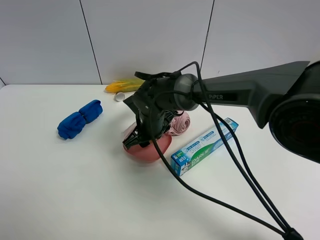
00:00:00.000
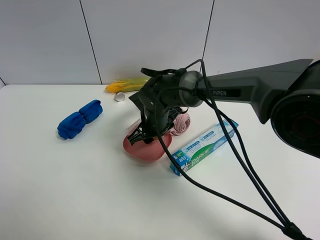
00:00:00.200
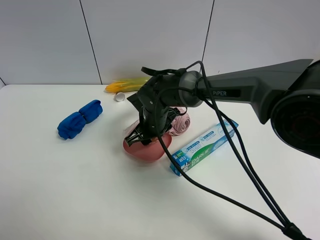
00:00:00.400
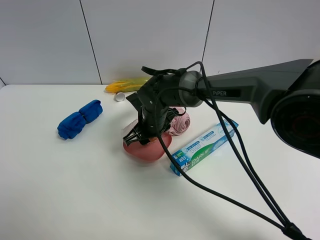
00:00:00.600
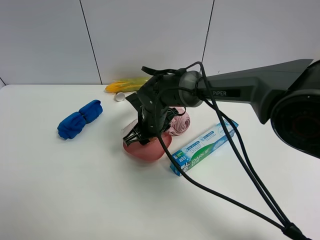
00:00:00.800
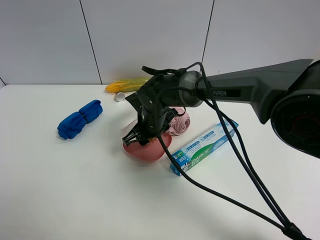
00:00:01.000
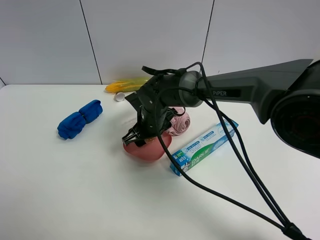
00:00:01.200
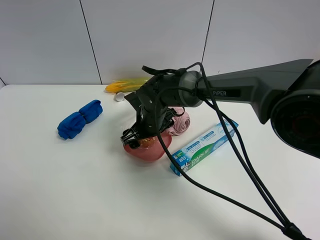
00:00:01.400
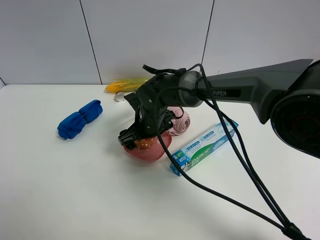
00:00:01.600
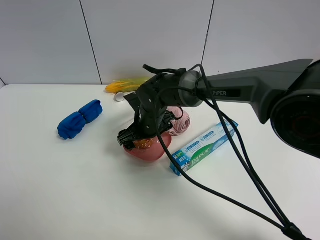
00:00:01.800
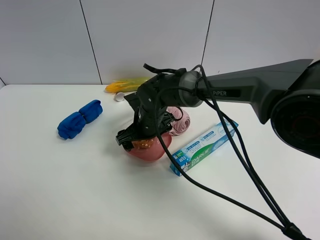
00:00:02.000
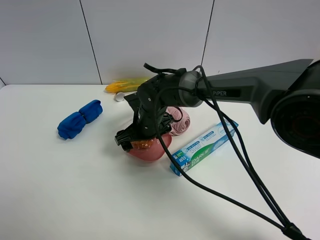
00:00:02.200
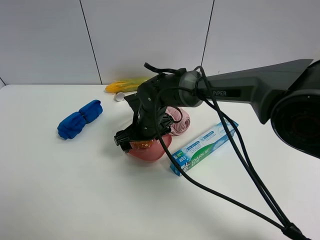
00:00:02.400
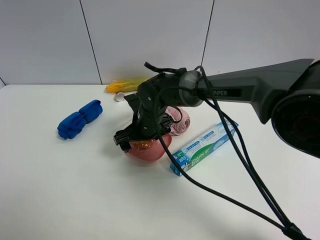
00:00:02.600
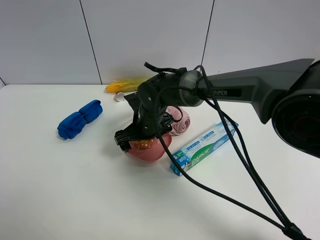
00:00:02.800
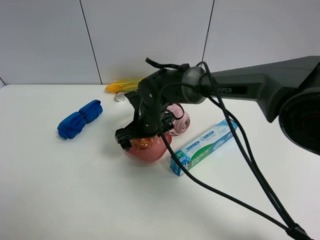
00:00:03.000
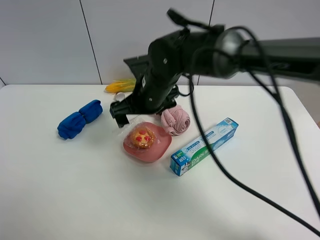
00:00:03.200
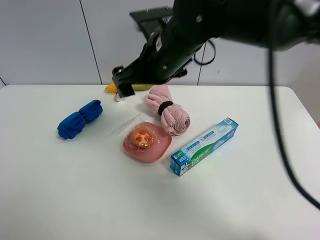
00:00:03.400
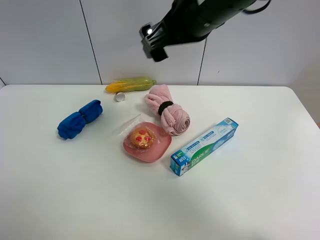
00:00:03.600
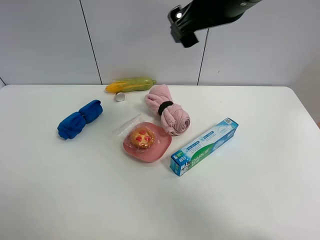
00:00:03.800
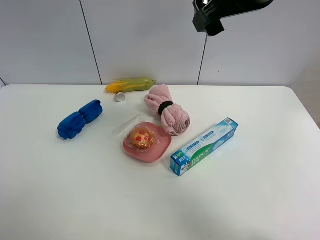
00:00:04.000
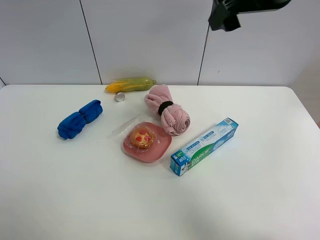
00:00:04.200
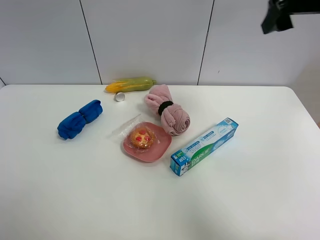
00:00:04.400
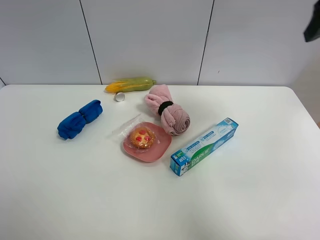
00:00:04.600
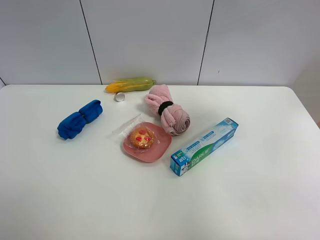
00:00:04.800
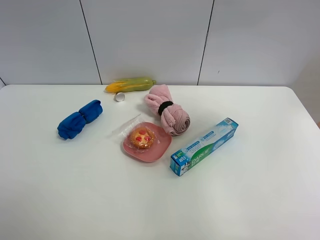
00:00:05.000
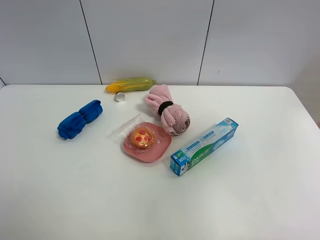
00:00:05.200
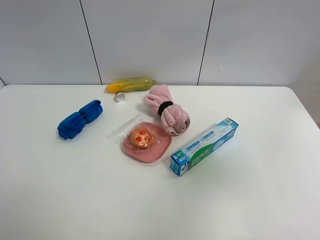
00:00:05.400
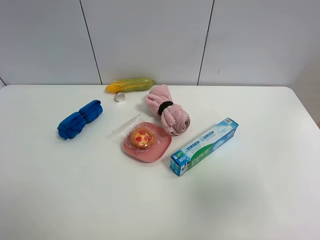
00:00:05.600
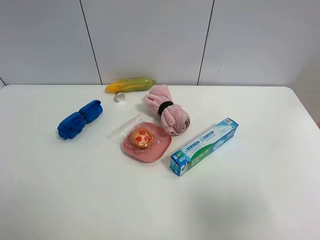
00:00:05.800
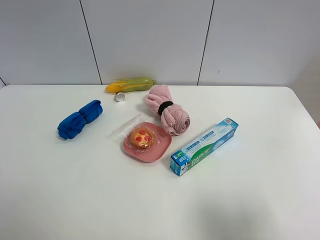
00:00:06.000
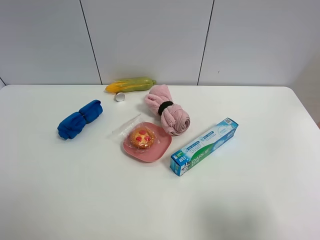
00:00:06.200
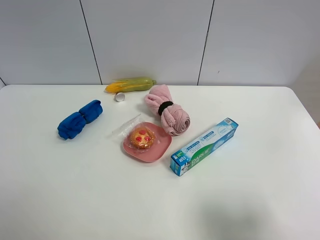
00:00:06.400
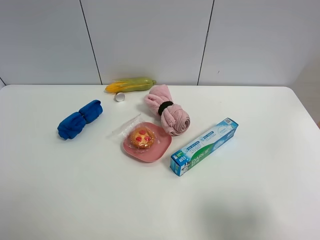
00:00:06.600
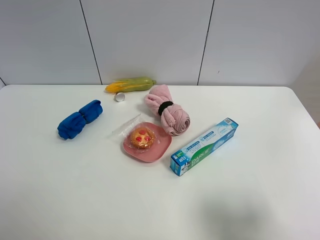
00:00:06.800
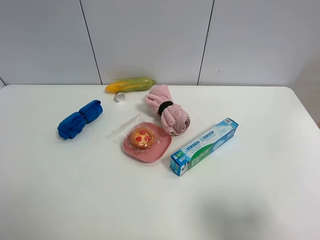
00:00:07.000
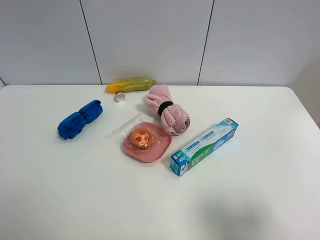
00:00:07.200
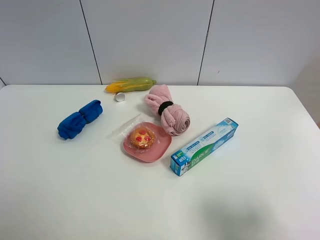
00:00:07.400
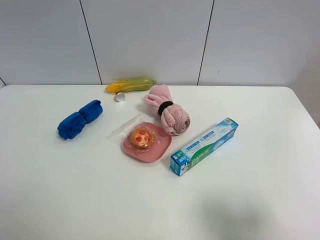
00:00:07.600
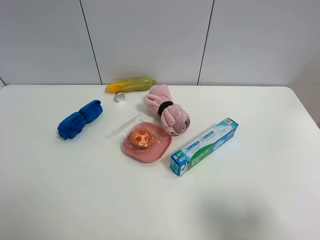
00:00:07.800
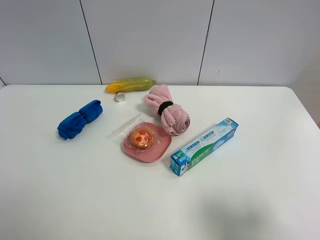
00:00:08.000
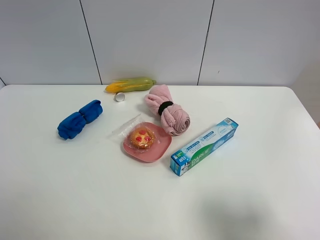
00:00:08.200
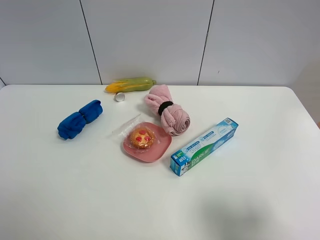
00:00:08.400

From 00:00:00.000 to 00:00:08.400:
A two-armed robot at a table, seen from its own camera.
Task of the whole recording: the gripper move the object.
From 00:00:00.000 to 00:00:01.400: The right gripper opens.
From 00:00:01.400 to 00:00:02.800: The grippers move only a little.
From 00:00:02.800 to 00:00:04.200: The right gripper moves upward and to the right, some 35 cm.
From 00:00:04.200 to 00:00:05.600: The right gripper heads backward and to the right, covering some 30 cm.
From 00:00:05.600 to 00:00:07.000: The right gripper goes some 10 cm downward.
From 00:00:07.000 to 00:00:08.400: Both grippers stay about where they are.

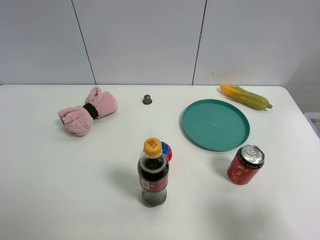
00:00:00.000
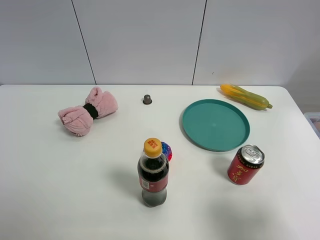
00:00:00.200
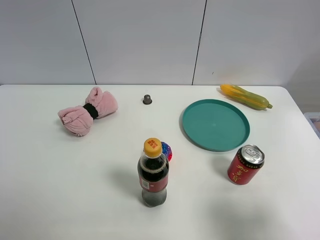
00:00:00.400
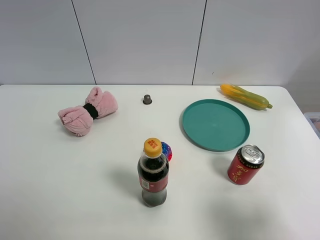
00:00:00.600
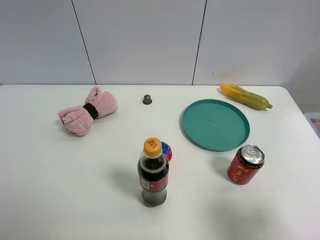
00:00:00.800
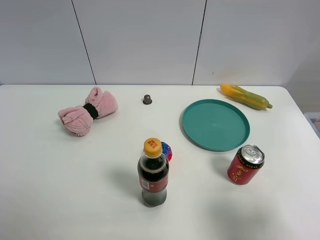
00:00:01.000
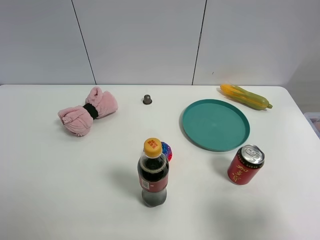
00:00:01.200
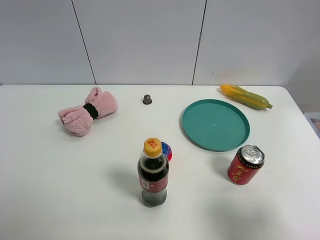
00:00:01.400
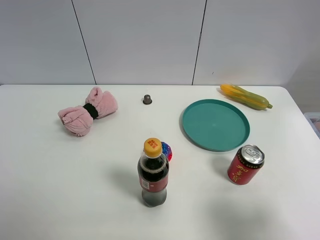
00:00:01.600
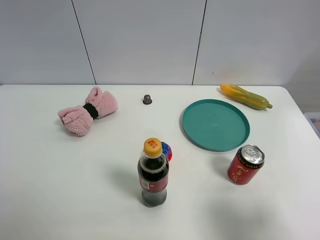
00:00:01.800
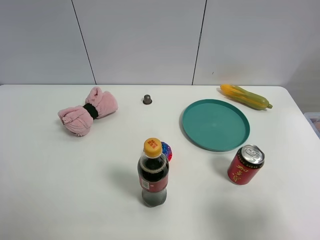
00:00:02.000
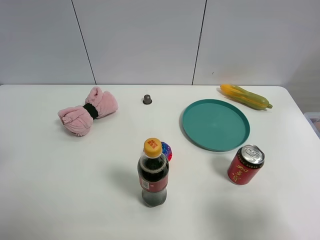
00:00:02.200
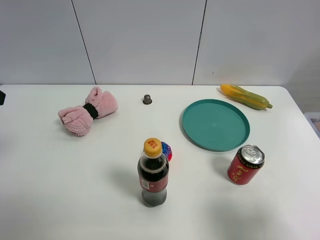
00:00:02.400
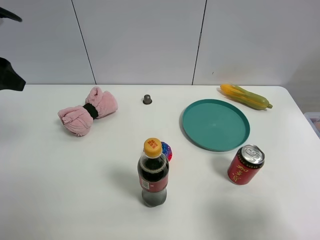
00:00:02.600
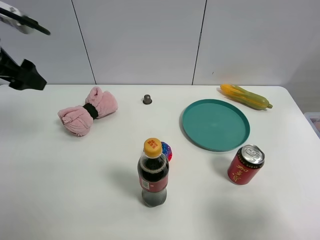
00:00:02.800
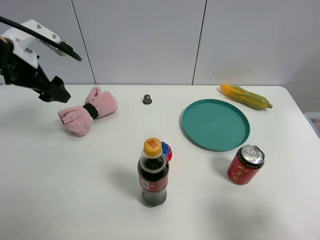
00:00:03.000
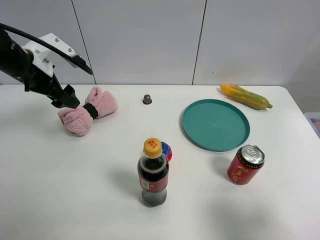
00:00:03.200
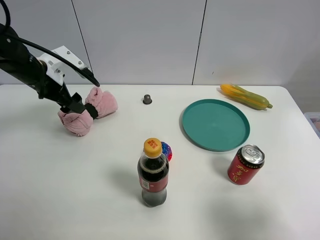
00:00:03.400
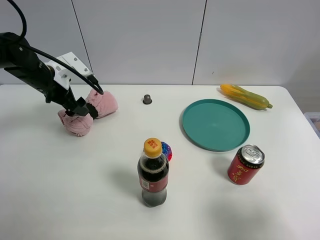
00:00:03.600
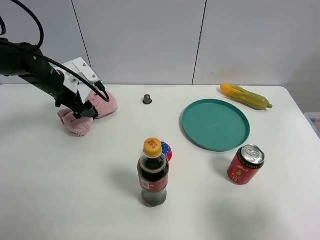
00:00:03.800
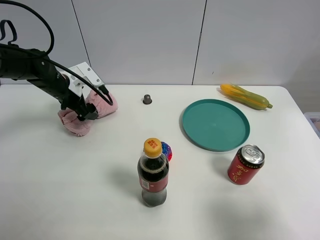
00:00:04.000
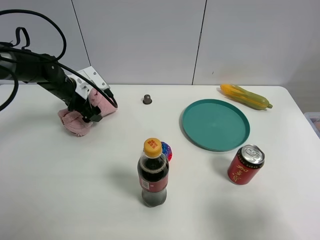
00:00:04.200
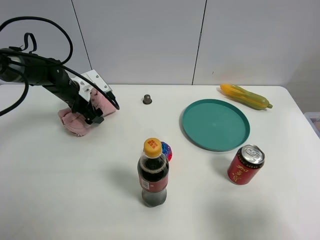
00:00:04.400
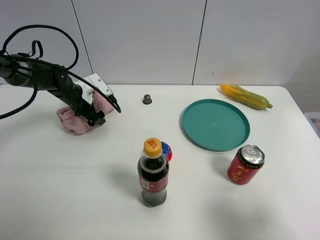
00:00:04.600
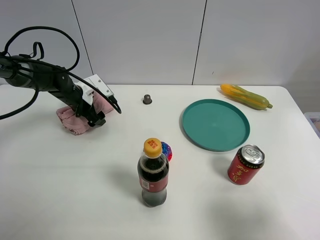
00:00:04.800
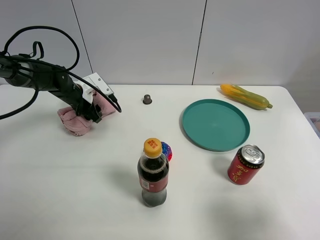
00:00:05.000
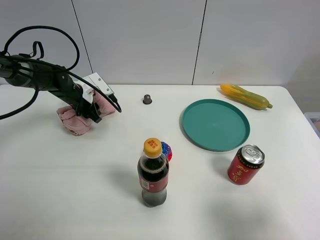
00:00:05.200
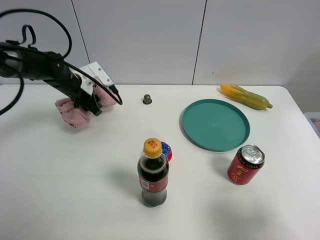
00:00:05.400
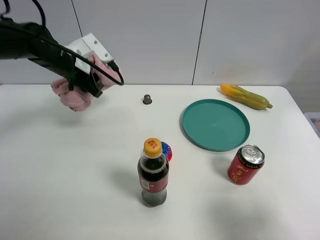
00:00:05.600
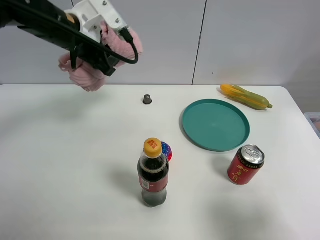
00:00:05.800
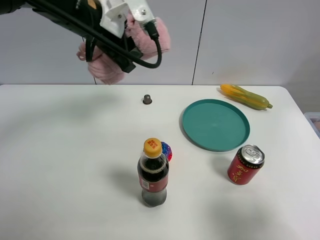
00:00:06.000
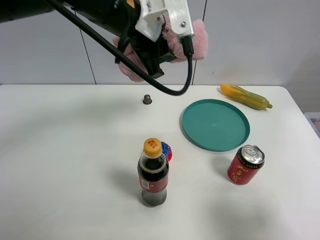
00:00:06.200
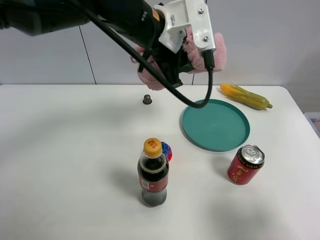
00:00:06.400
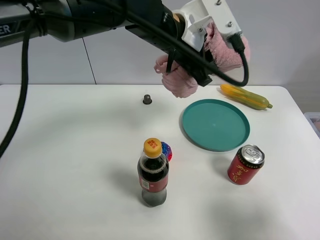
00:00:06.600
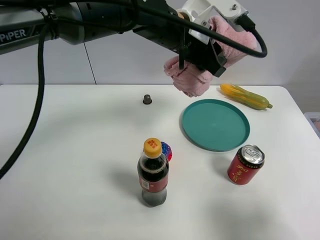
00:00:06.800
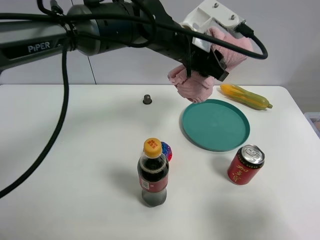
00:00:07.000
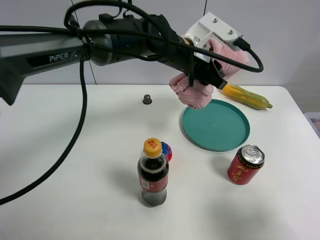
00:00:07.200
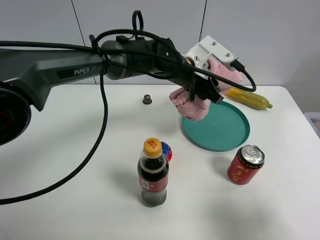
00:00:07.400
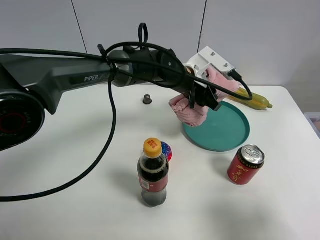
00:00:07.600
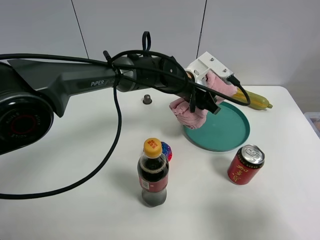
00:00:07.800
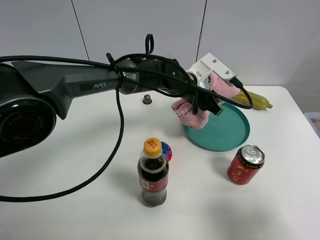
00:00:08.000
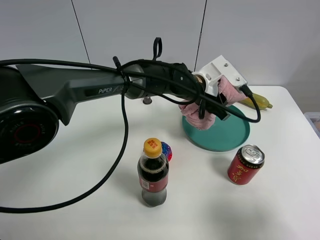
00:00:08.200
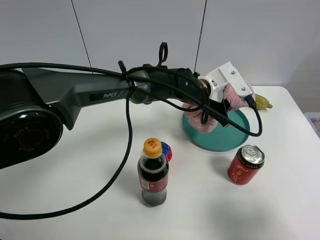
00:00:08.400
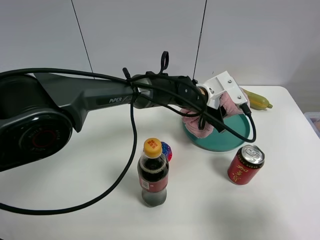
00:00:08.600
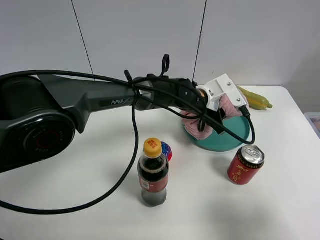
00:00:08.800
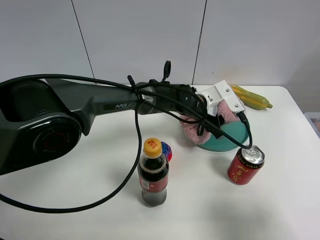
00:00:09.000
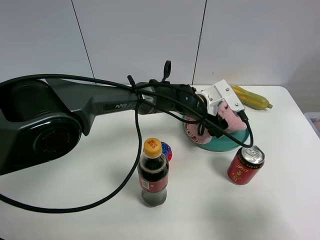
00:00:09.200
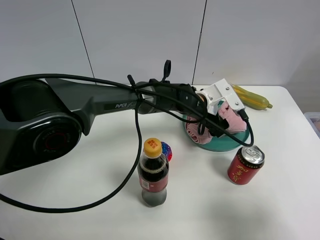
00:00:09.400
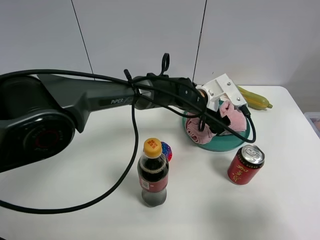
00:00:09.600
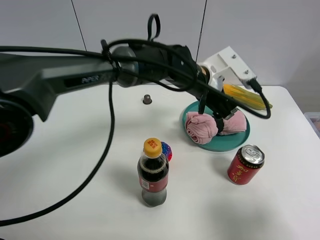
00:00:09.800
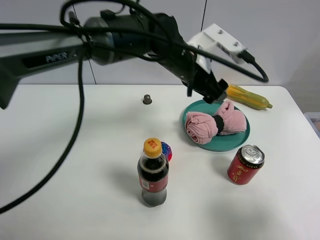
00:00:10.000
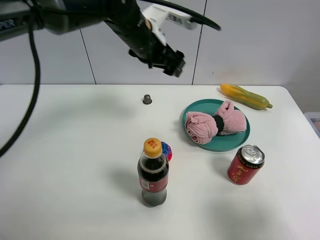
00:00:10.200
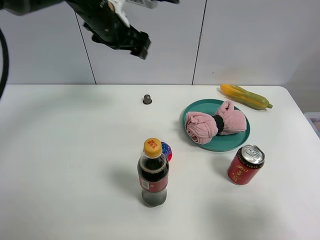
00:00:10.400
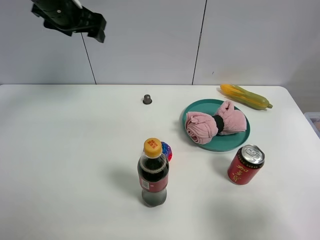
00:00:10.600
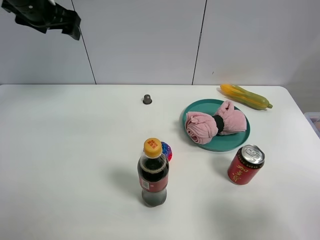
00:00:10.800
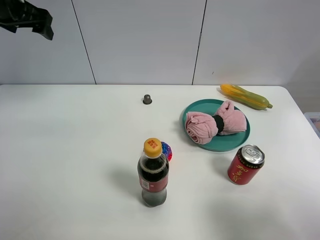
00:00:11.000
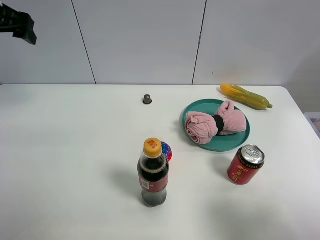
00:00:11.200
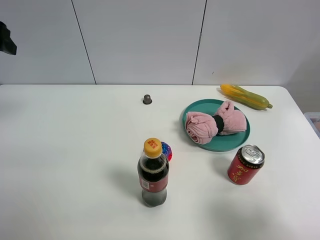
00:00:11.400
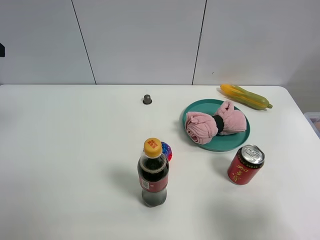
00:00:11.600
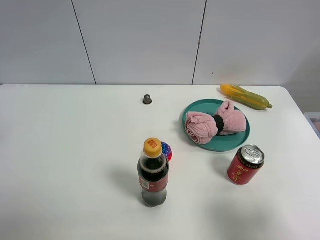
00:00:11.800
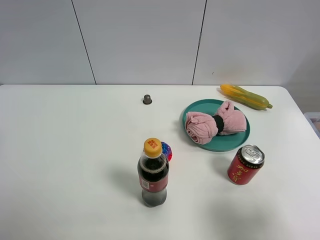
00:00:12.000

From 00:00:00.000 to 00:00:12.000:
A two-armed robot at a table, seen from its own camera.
Task of the whole recording: the gripper move the object.
Step, from 00:00:00.000 to 00:00:05.000: Grasp the pink towel with the left gripper.
Step, from 00:00:05.200 to 00:00:09.600: Place the pink towel on the table with the left gripper.
From 00:00:01.600 to 00:00:03.000: The left gripper goes about 30 cm forward.
From 00:00:03.000 to 00:00:04.400: The left gripper heads downward and forward, covering roughly 20 cm.
From 00:00:04.400 to 00:00:06.000: The left gripper heads upward and to the right, covering about 25 cm, and closes.
From 00:00:06.000 to 00:00:07.600: The left gripper moves downward and to the right, roughly 20 cm.
From 00:00:07.600 to 00:00:09.000: The left gripper shifts approximately 5 cm downward.
From 00:00:09.000 to 00:00:10.400: The left gripper is displaced to the left and upward by about 30 cm, and opens its fingers.
From 00:00:10.400 to 00:00:12.000: The left gripper heads backward and to the left, covering roughly 35 cm.

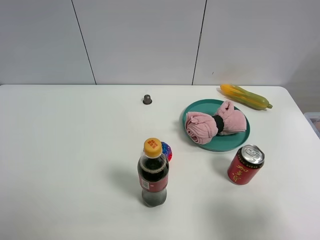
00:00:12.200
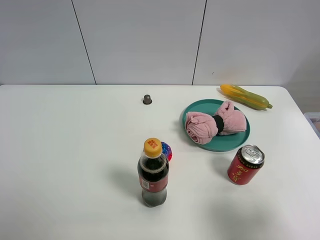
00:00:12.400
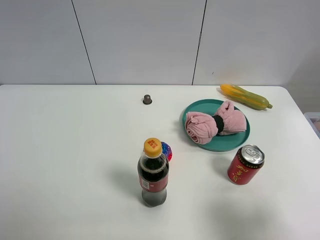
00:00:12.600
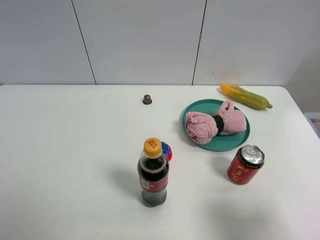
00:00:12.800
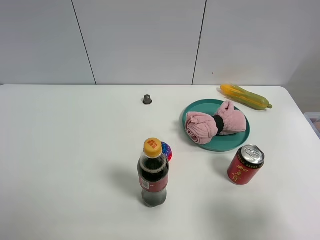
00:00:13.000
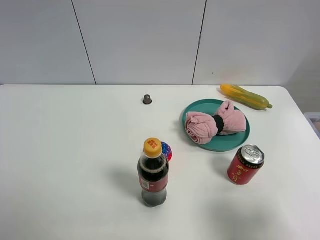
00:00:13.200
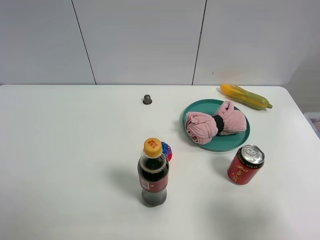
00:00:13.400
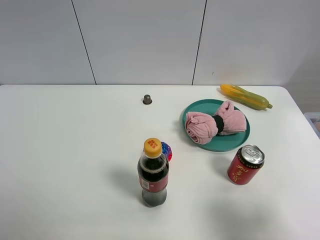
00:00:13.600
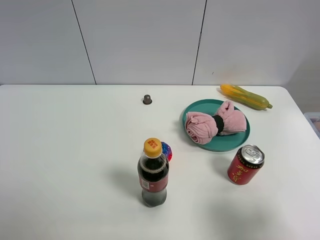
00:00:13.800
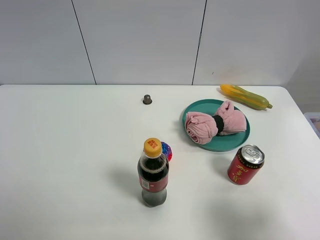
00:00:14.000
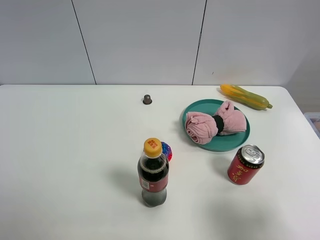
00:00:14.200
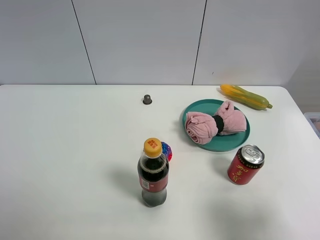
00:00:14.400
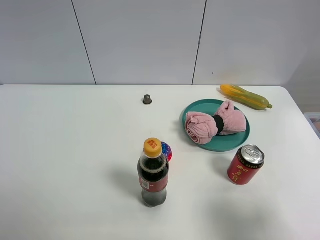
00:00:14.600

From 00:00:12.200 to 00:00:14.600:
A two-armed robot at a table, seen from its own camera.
Task of the whole recording: the gripper move the object.
From 00:00:13.400 to 00:00:14.600: Neither gripper changes place.
